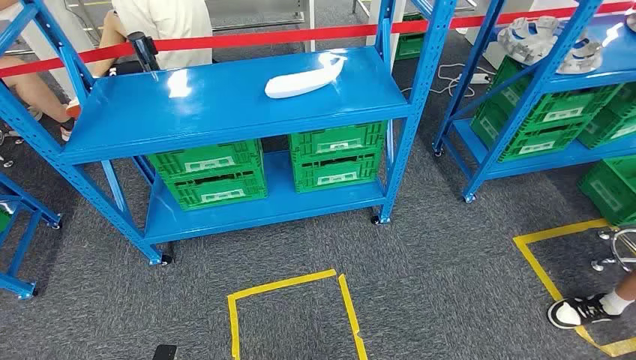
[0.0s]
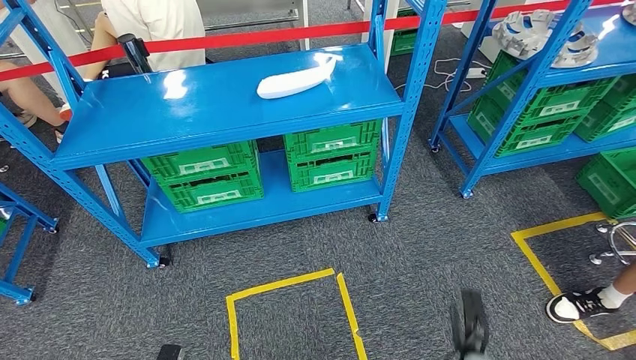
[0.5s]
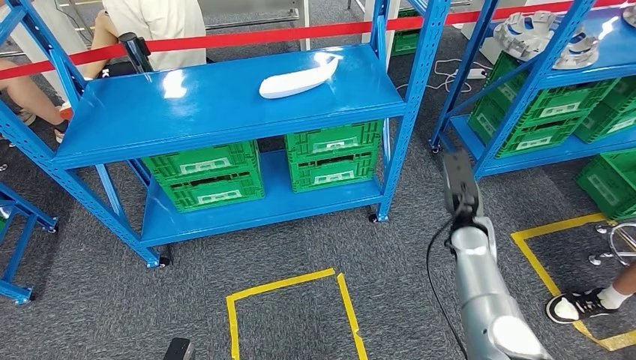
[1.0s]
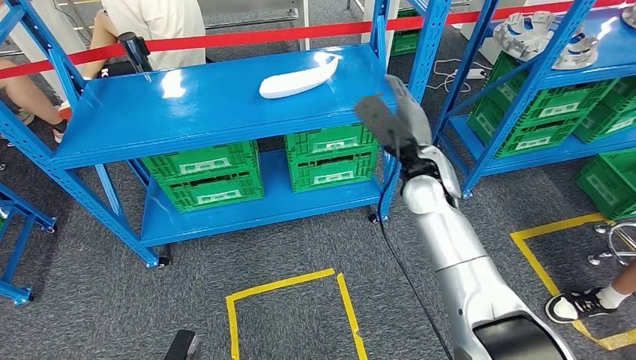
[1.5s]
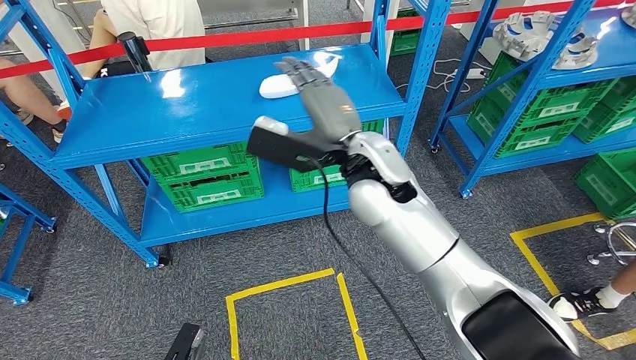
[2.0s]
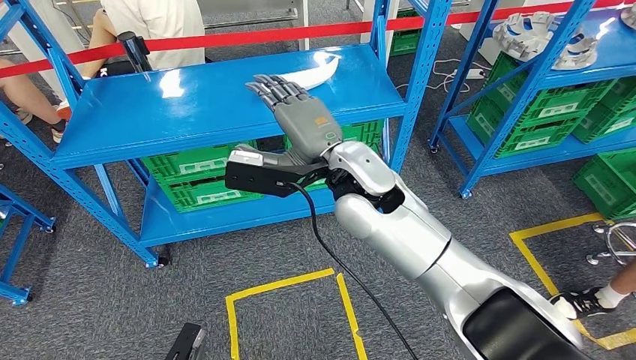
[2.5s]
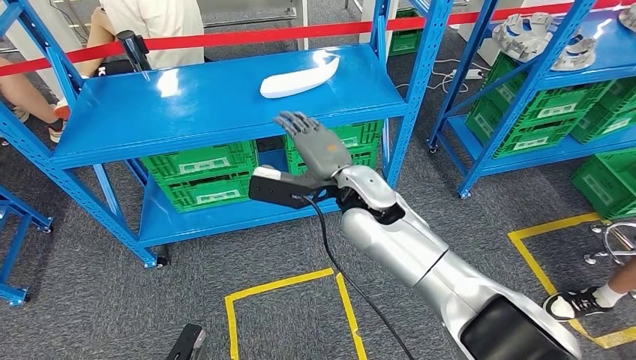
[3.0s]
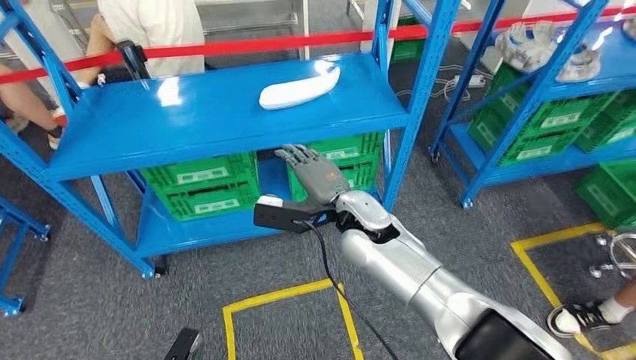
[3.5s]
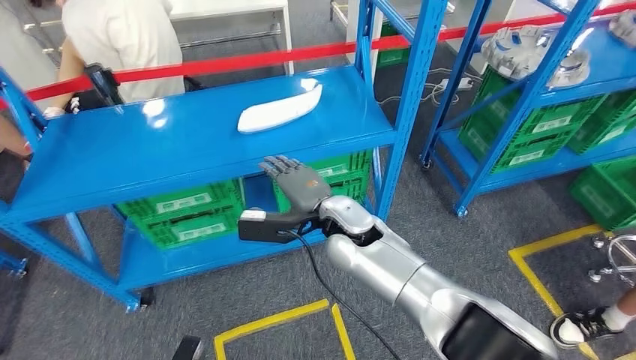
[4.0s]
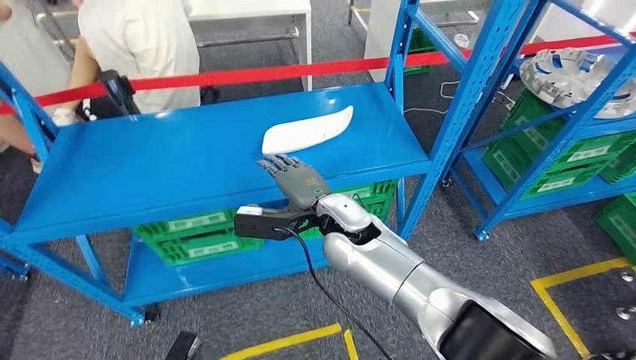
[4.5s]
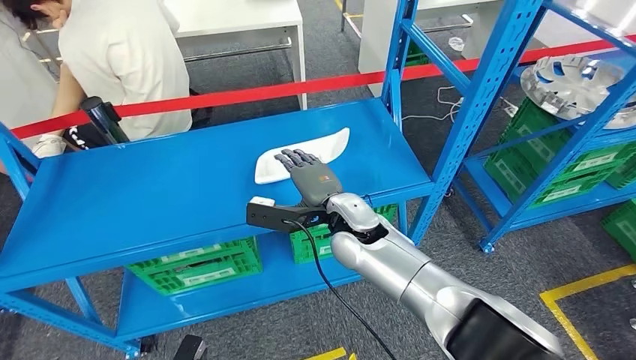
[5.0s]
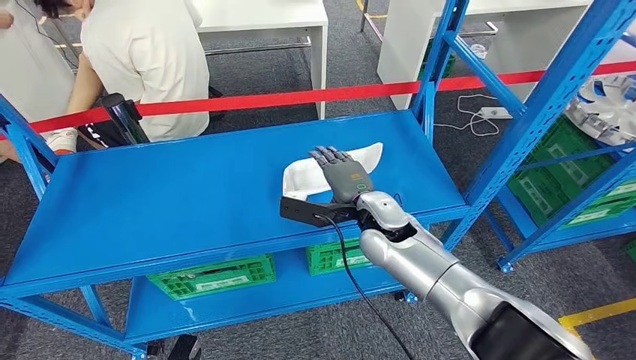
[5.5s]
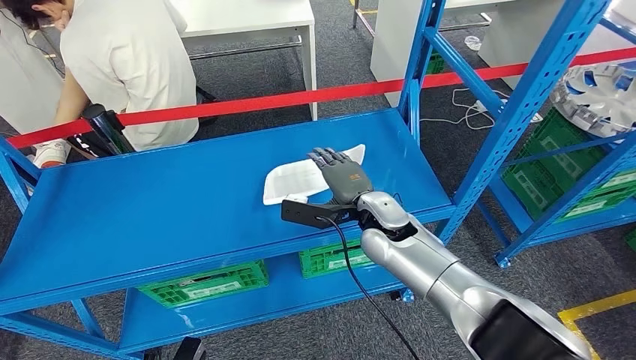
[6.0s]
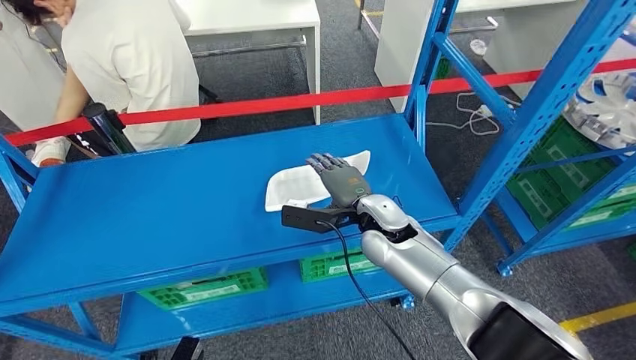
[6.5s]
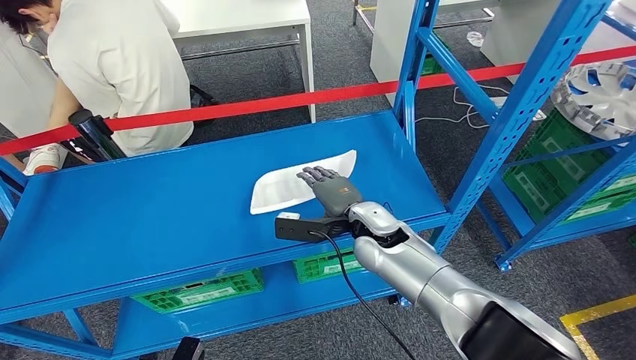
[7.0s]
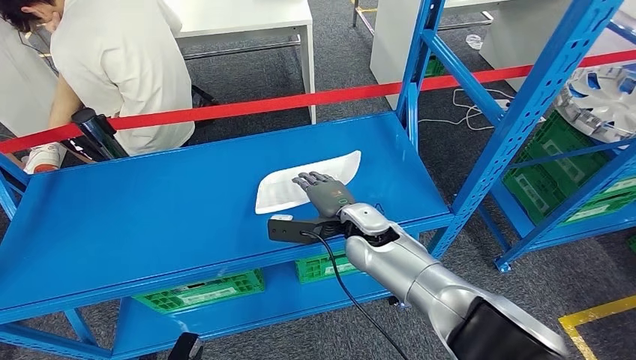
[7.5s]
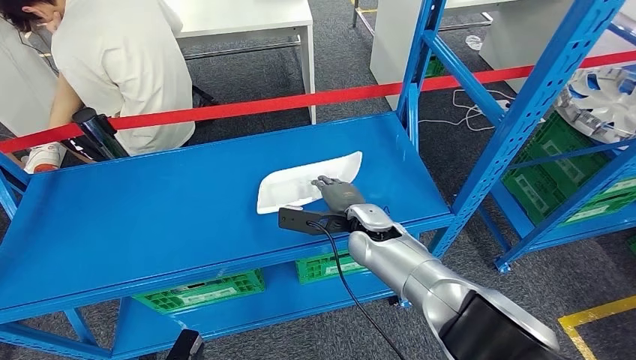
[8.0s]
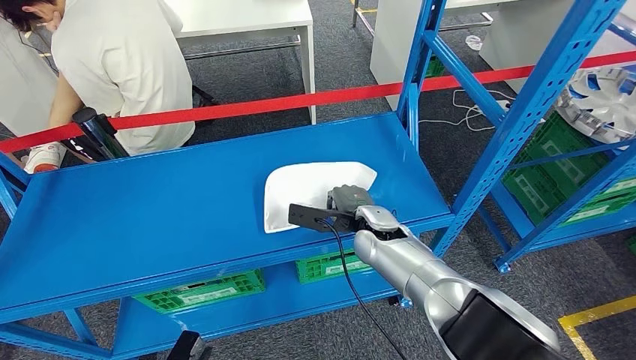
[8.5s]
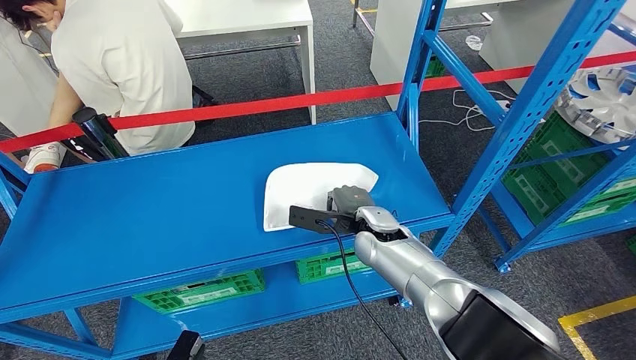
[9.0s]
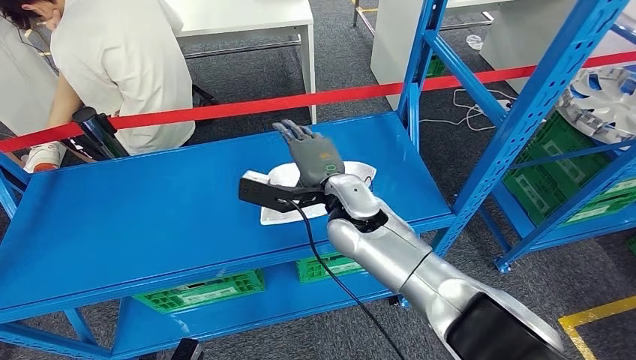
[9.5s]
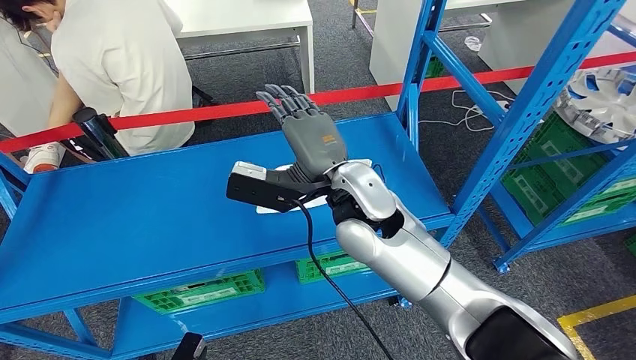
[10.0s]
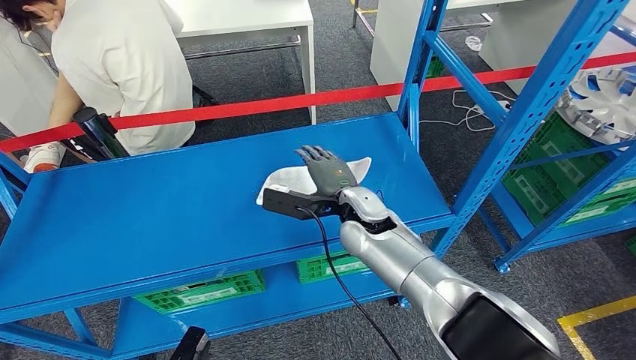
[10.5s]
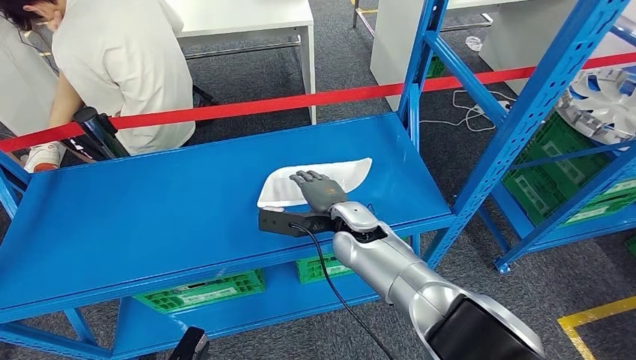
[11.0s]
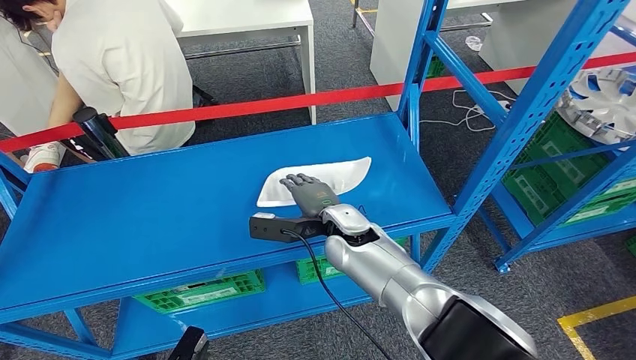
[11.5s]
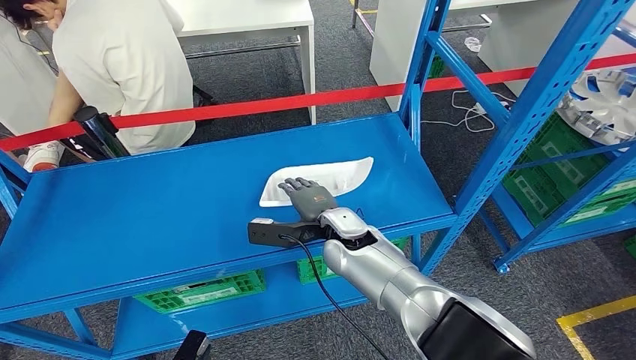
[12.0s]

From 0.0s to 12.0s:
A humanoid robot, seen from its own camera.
From 8.0s to 10.0s: The right hand is displaced upward and to the left by about 15 cm.
From 10.0s to 12.0s: The right hand goes some 15 cm downward.

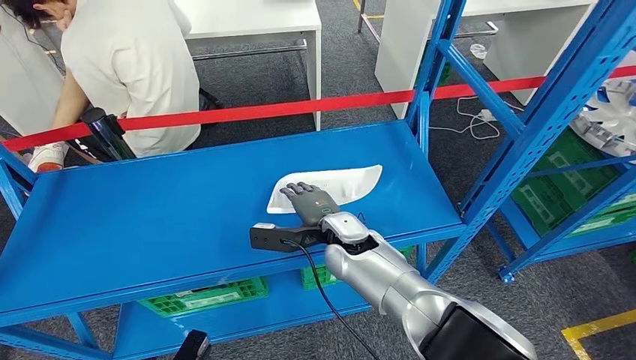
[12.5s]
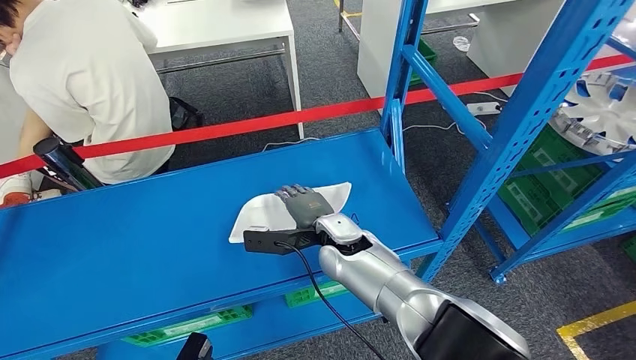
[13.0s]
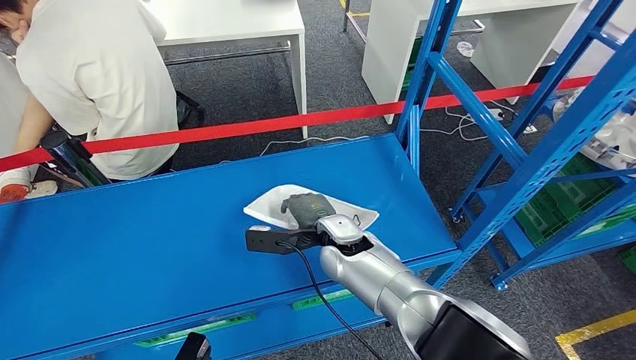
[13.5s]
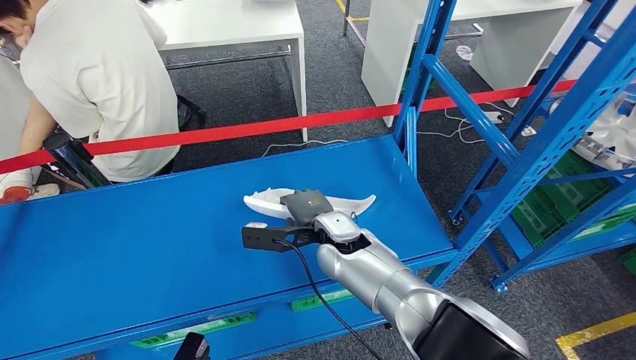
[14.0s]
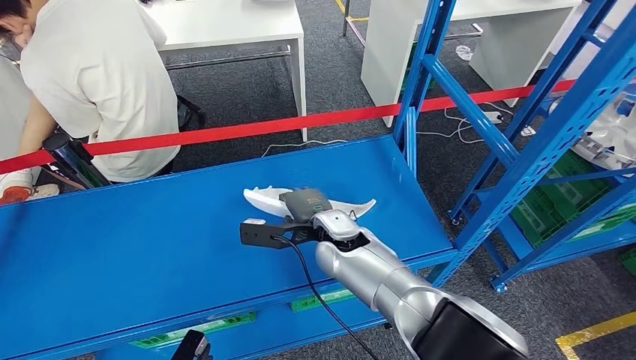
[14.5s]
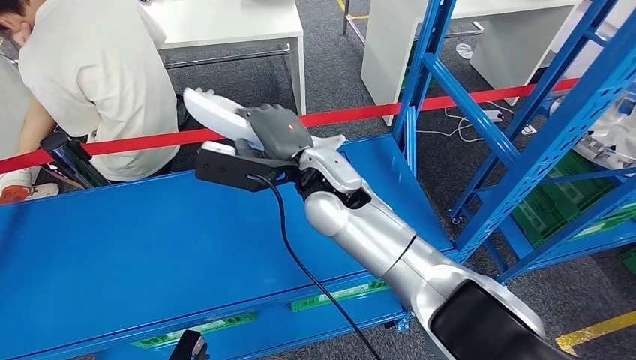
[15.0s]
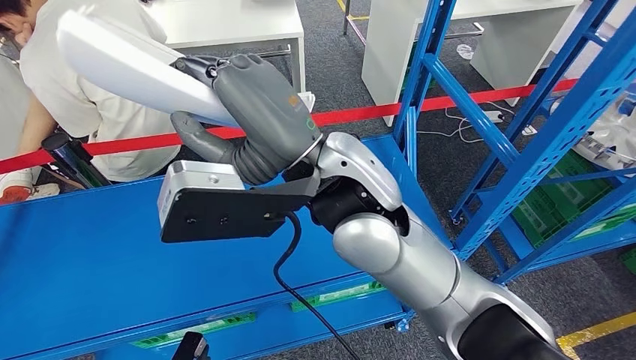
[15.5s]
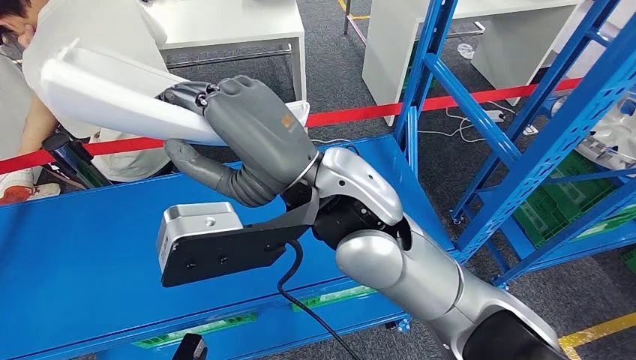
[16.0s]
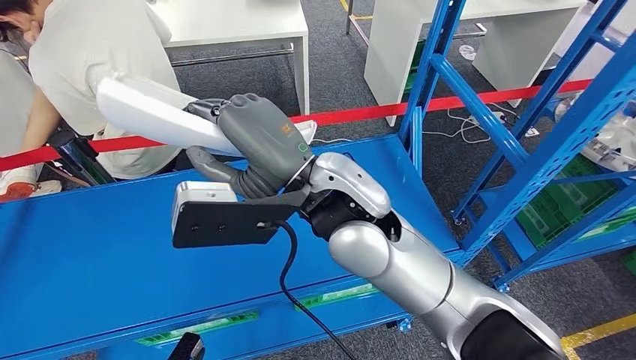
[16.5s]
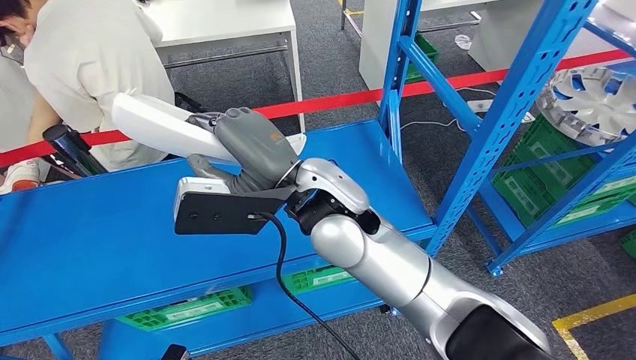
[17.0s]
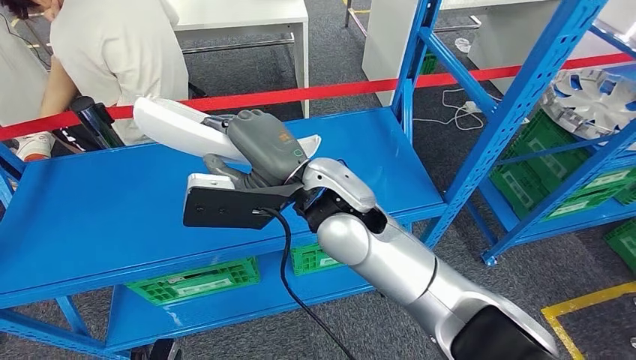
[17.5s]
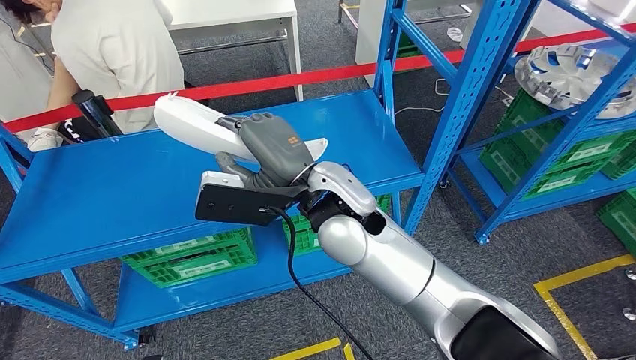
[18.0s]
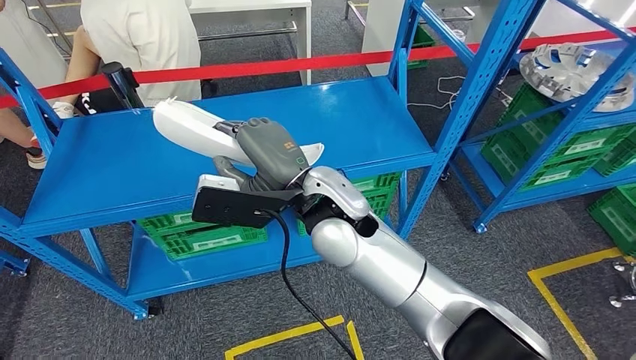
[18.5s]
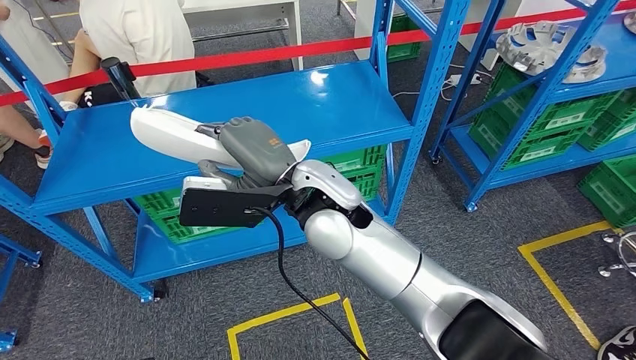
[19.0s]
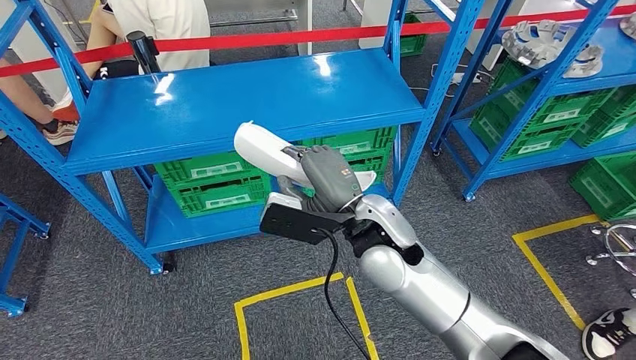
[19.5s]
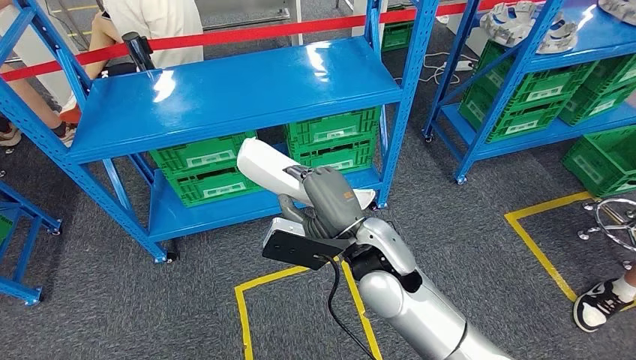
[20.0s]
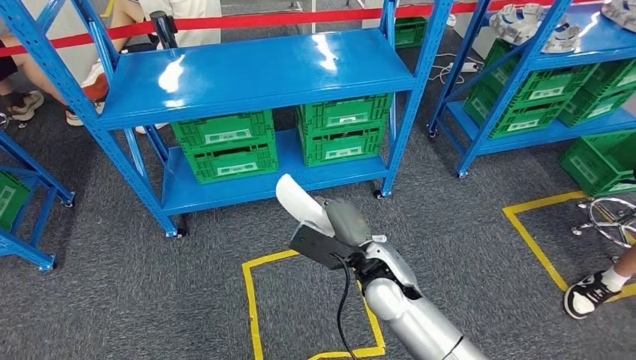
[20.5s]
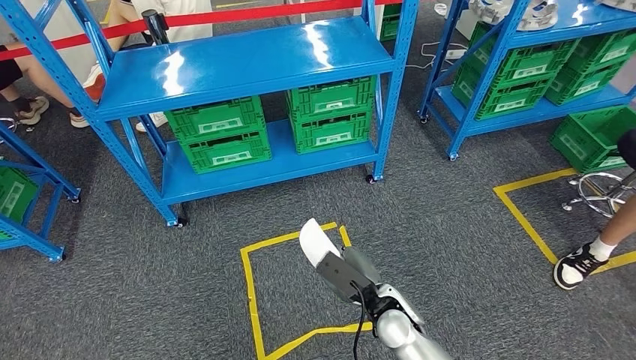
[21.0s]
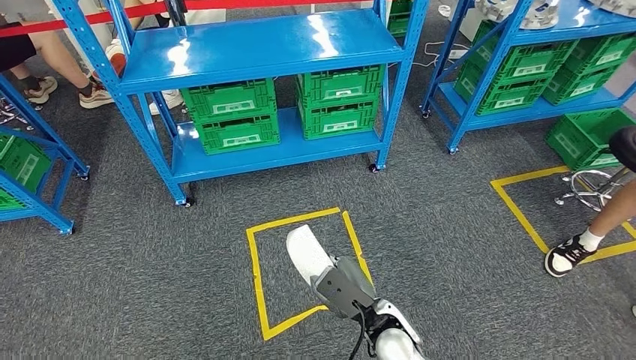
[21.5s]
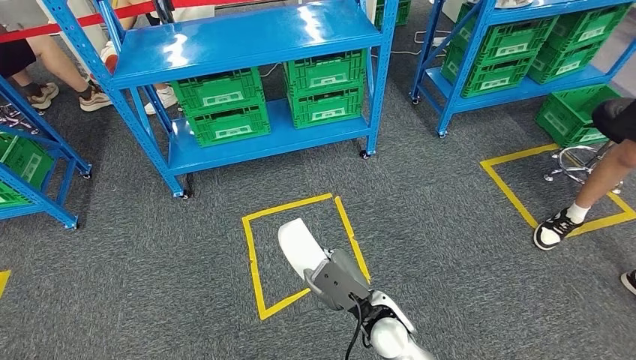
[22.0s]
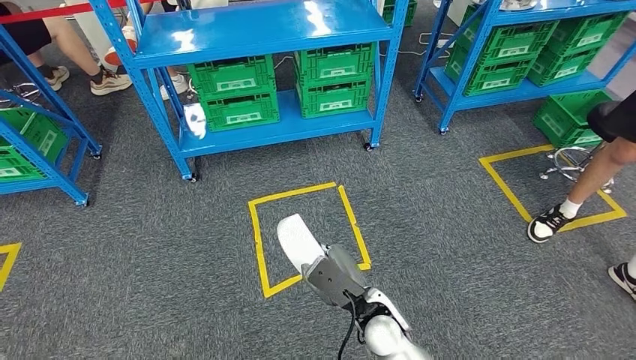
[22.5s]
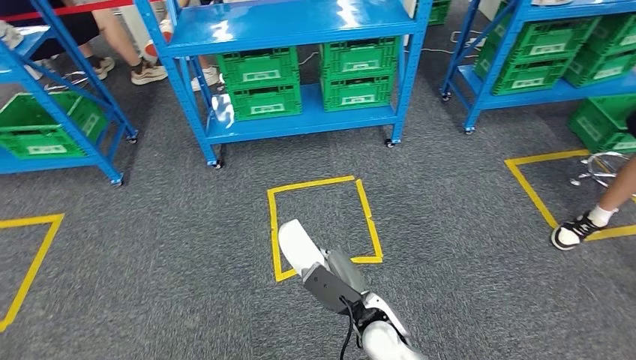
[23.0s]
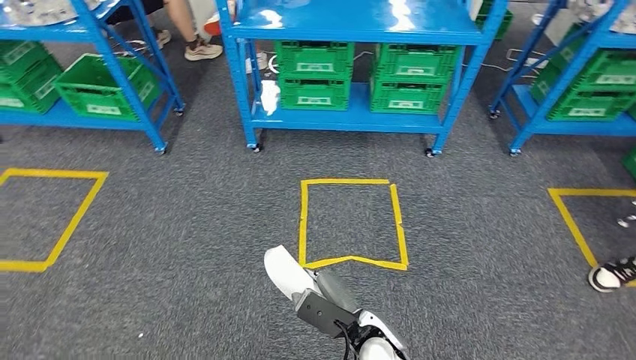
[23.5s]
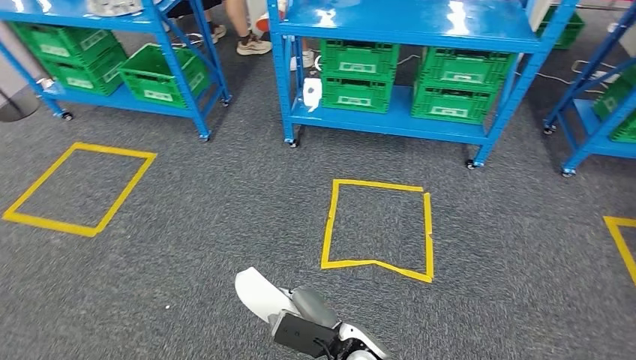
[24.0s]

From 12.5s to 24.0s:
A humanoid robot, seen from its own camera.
Step, from 12.5s to 15.5s: Pick up the small parts from the shelf.
